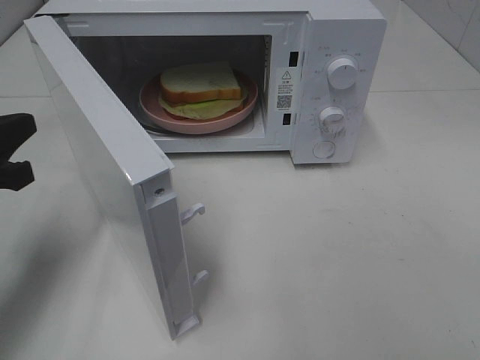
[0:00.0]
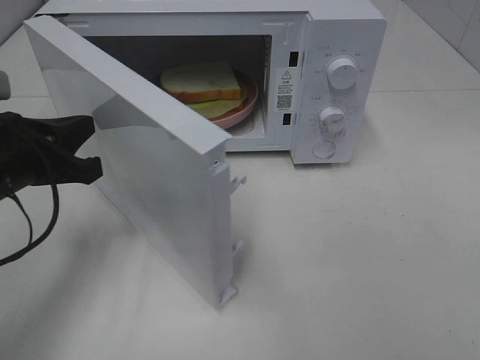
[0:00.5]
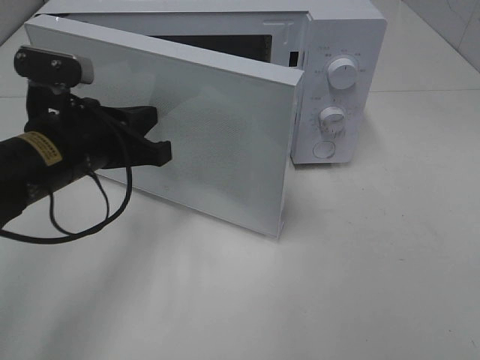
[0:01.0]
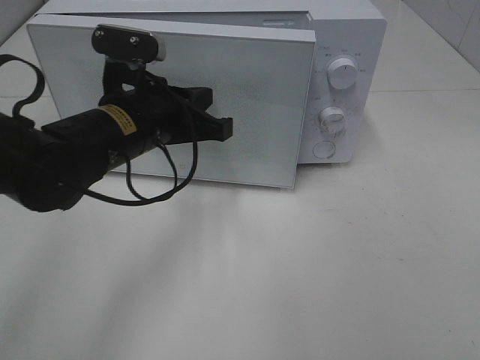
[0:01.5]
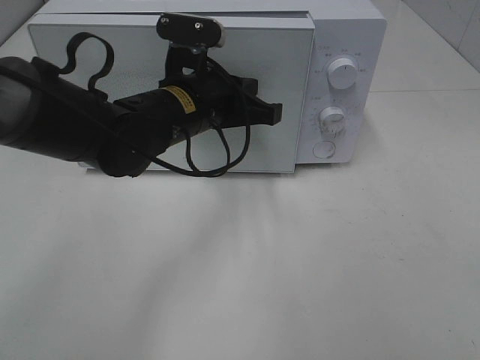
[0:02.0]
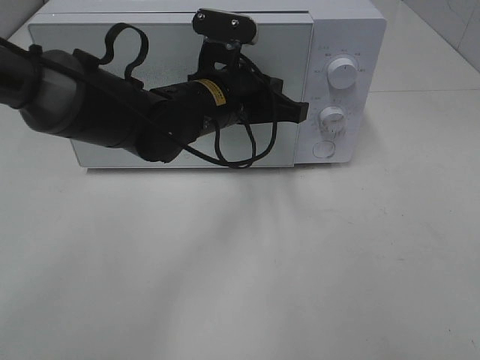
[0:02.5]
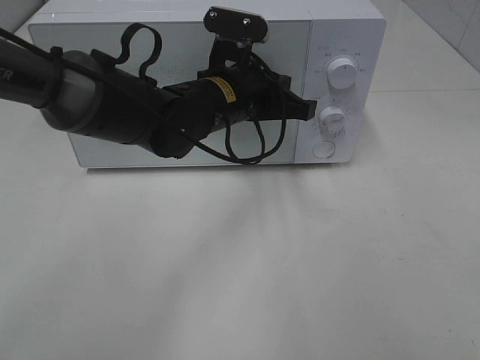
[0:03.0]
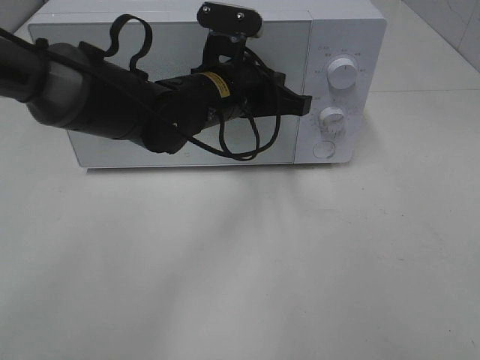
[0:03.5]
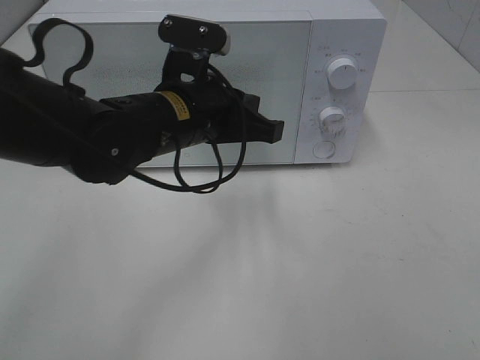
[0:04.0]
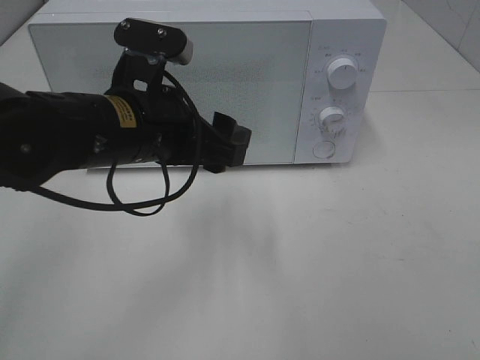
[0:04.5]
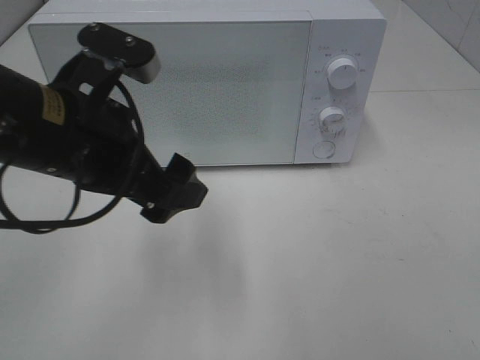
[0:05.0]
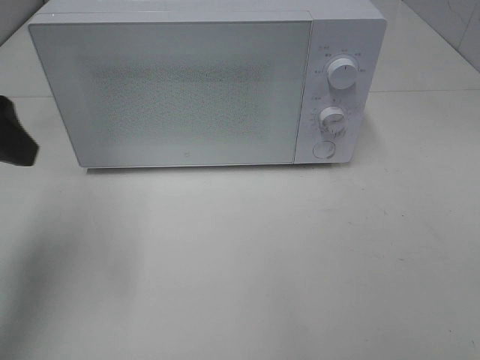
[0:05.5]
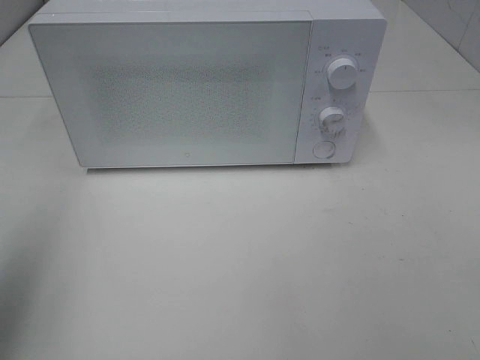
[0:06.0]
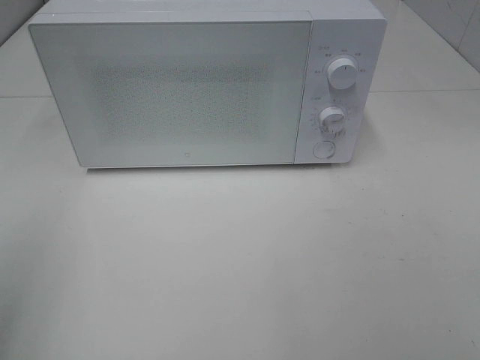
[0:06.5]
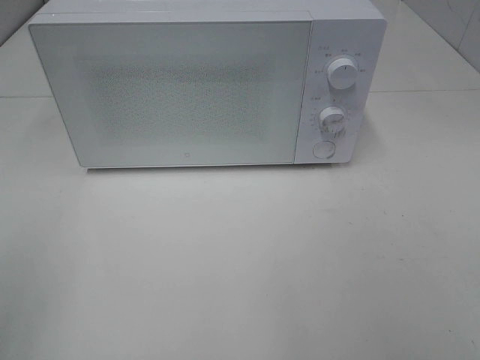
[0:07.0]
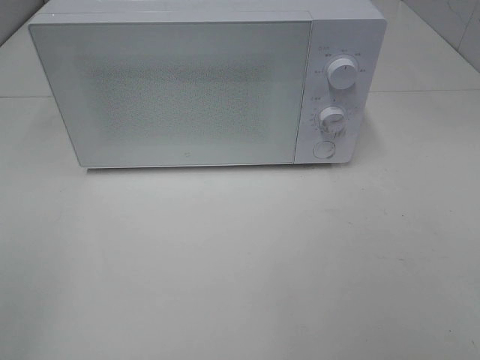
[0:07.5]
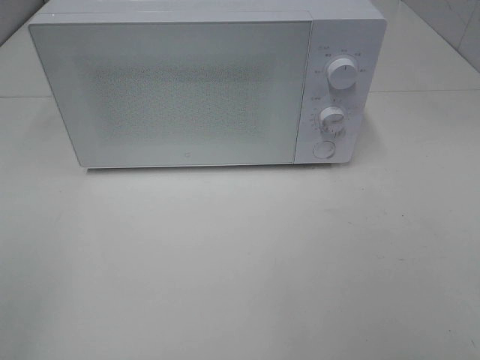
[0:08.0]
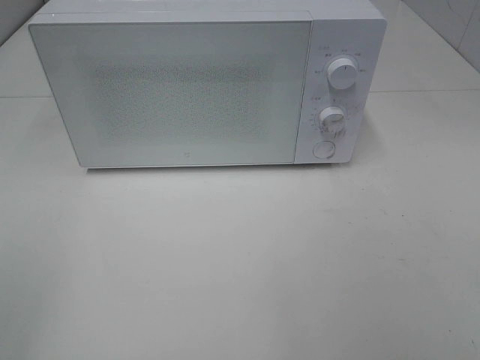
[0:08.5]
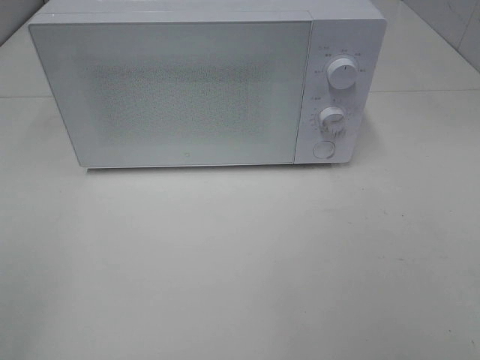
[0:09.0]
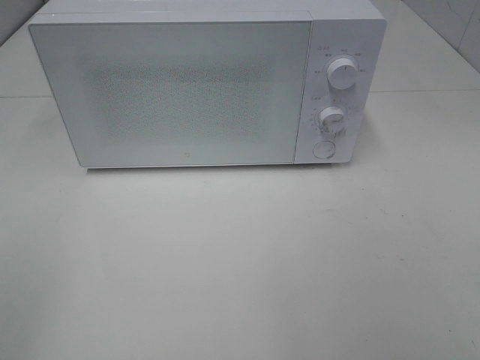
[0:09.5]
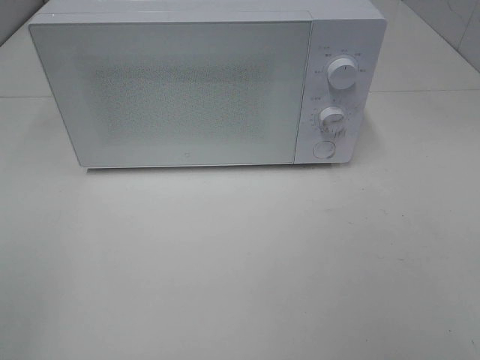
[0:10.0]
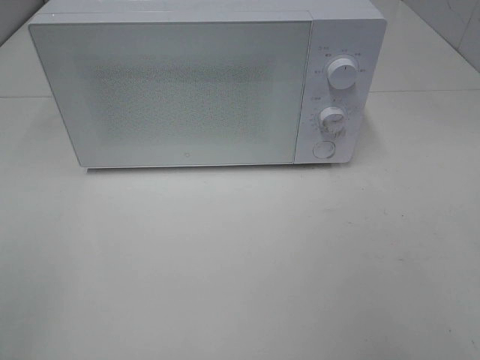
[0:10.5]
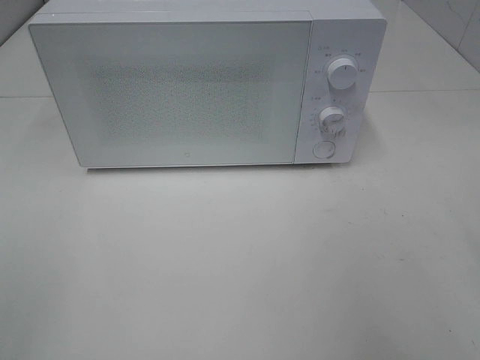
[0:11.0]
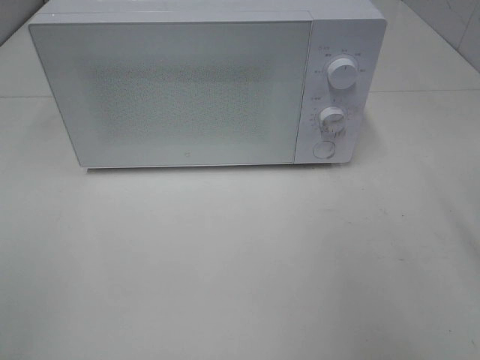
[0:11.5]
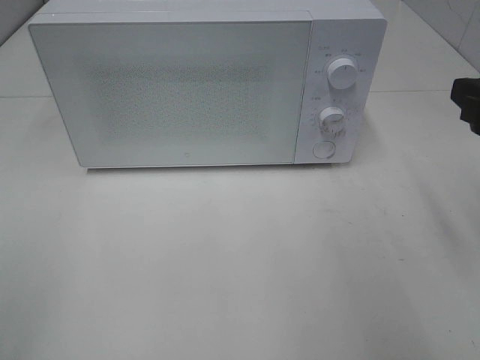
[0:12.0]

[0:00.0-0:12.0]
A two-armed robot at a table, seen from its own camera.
Task of the whole recording: Heat Sandwich.
Step, 0:00.0 to 0:04.0: Left hand: close the microwave door.
0:00.0 to 0:02.0: The left gripper heads to the right and forward, covering roughly 25 cm.
0:02.0 to 0:04.0: The grippers move only a little.
0:04.0 to 0:06.0: The left gripper shifts some 35 cm to the left, backward and upward, and opens.
0:06.0 to 0:08.0: The left gripper shifts some 15 cm backward and downward.
0:10.0 to 0:12.0: The right gripper moves forward, about 20 cm.

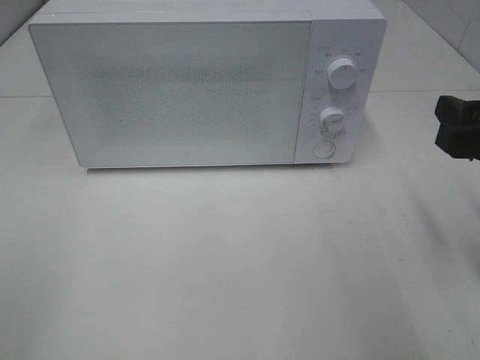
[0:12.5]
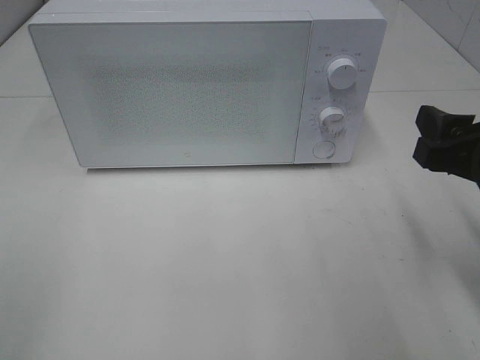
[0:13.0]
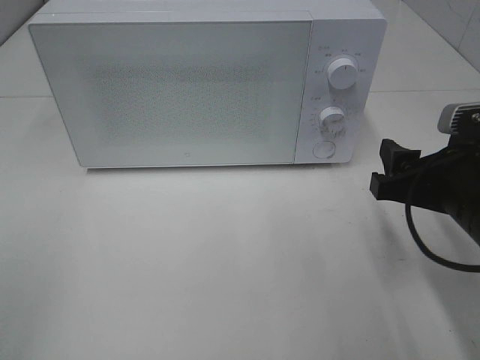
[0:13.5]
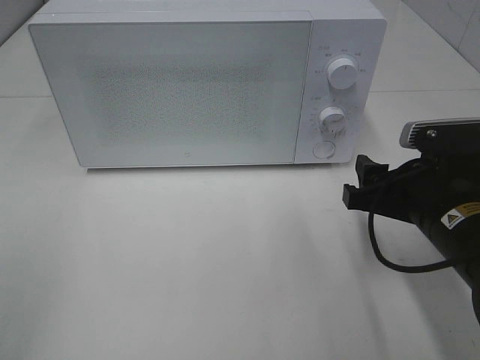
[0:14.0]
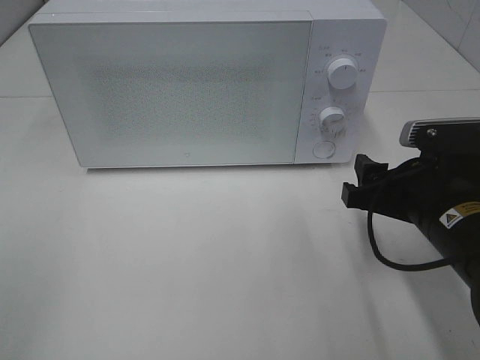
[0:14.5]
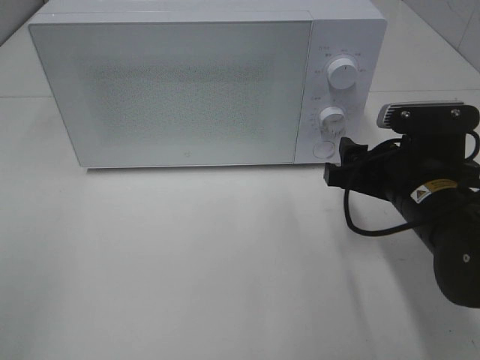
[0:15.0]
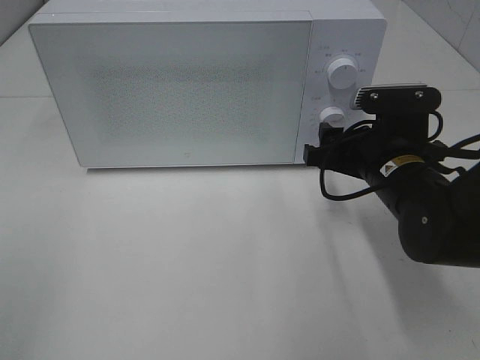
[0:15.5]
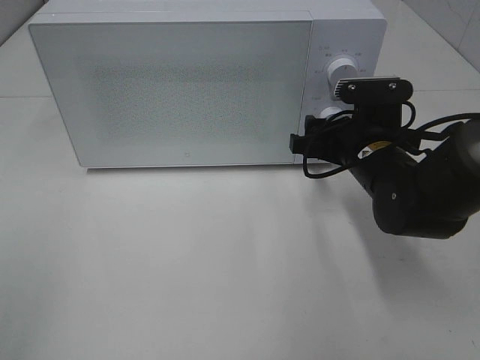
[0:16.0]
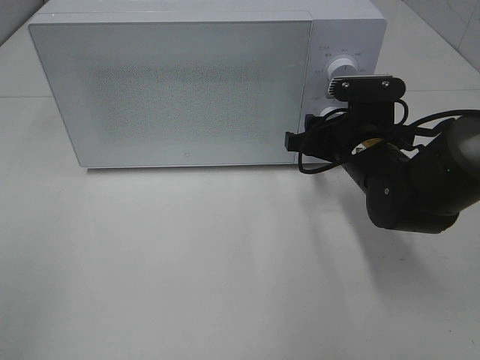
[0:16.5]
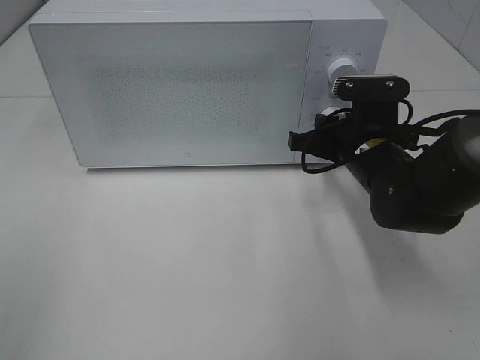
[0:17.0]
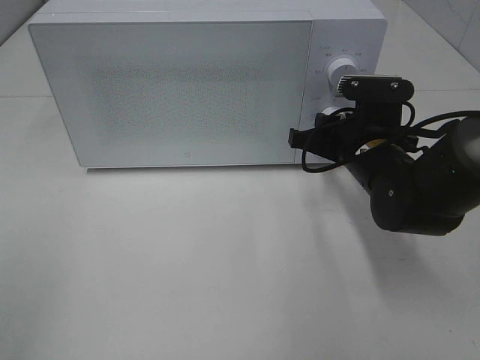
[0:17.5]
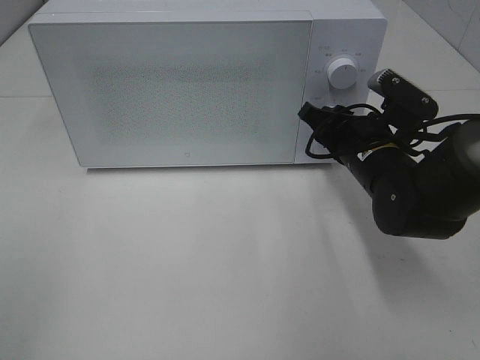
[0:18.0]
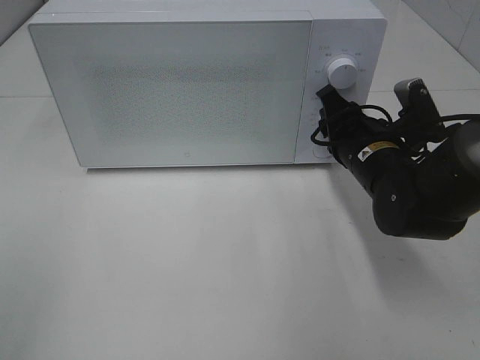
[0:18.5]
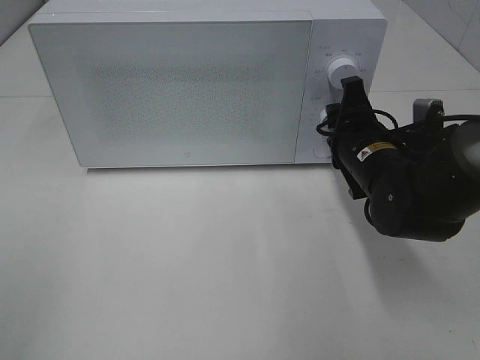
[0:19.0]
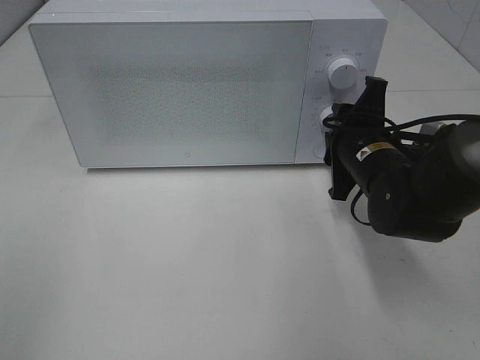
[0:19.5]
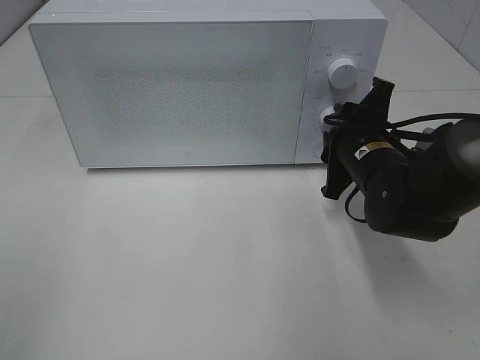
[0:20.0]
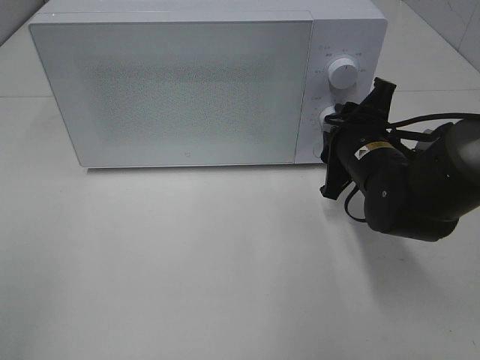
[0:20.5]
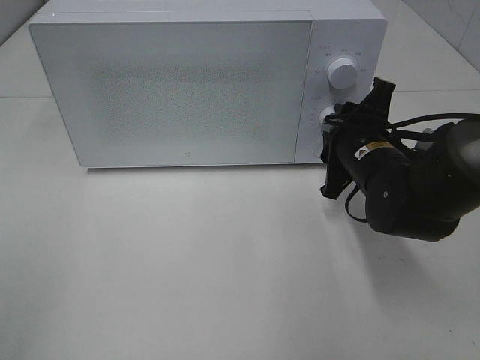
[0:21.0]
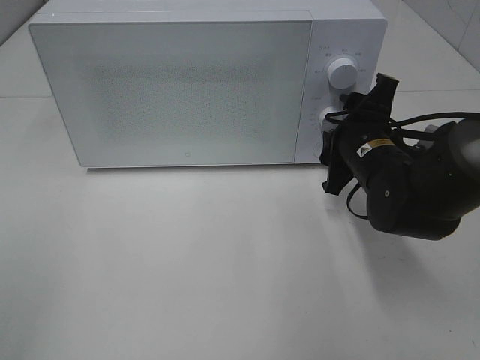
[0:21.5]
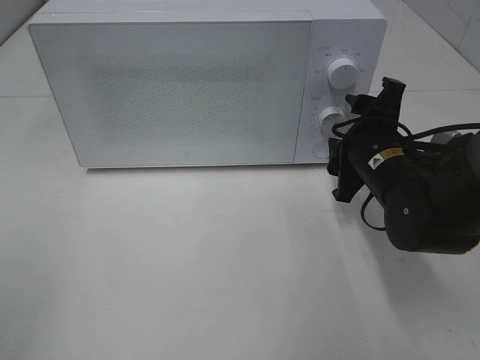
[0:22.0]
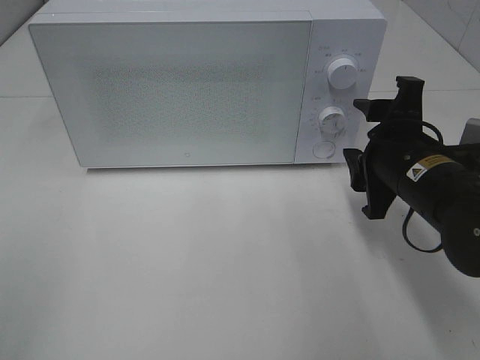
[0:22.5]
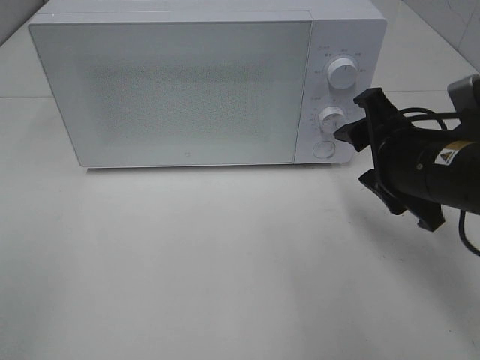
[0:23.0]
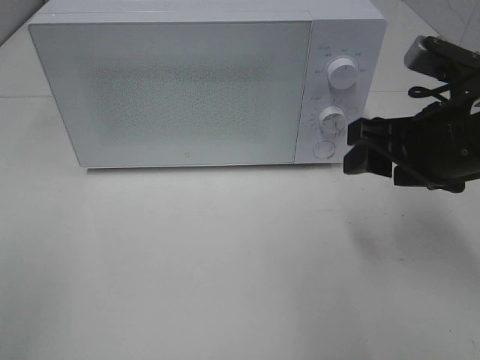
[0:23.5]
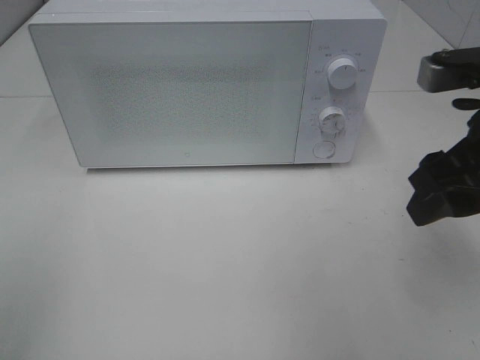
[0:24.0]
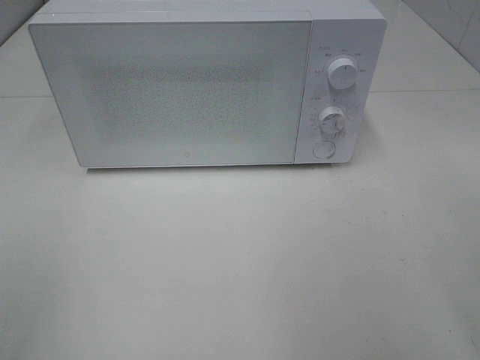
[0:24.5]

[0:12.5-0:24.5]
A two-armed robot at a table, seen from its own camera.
Task of the whole recording: Heat Sandwich.
Step, 0:12.5 to 0:22.0: Right hand: twist timer button.
0:12.5 to 0:14.5: The right gripper goes approximately 10 cm downward and to the left.
0:14.5 to 0:16.5: The right gripper heads forward, covering approximately 10 cm.
0:20.5 to 0:22.5: The right gripper heads backward, covering approximately 5 cm.
0:22.5 to 0:24.5: The right gripper travels upward and backward by about 20 cm.

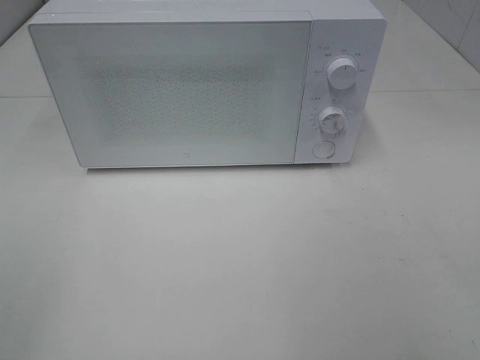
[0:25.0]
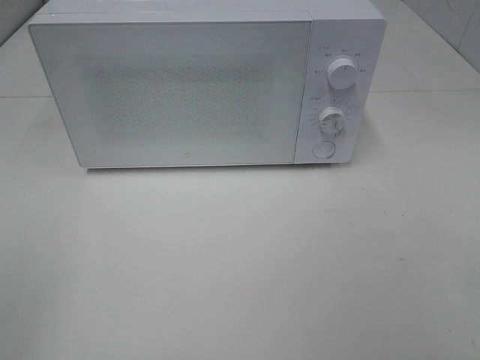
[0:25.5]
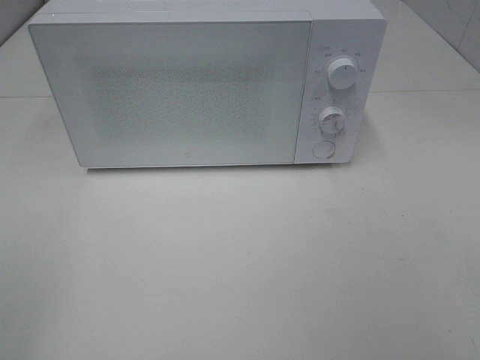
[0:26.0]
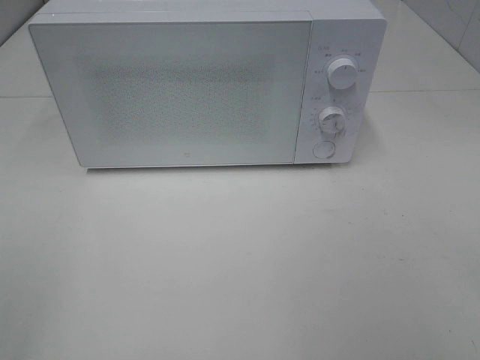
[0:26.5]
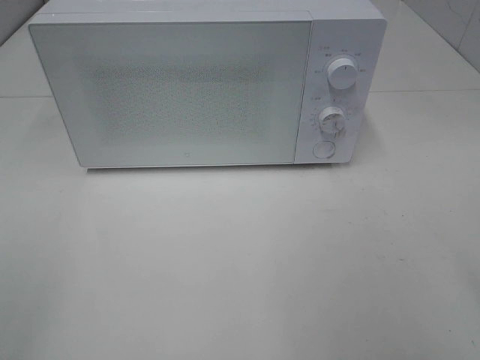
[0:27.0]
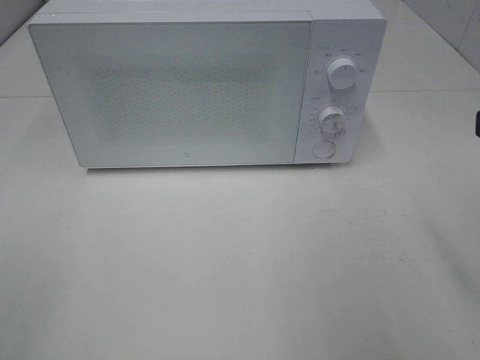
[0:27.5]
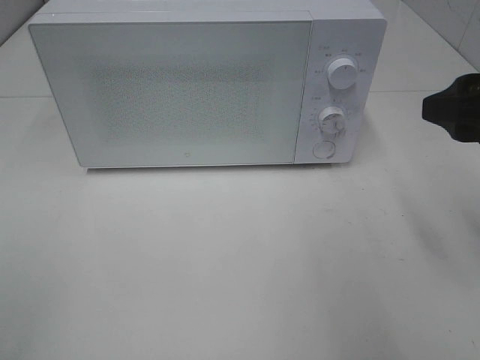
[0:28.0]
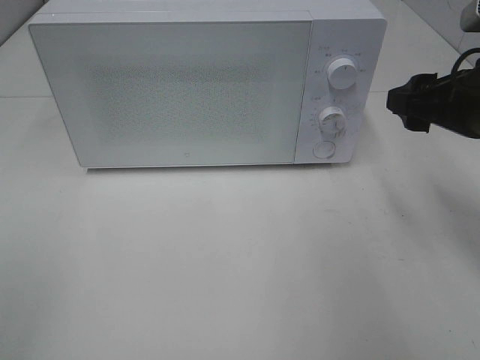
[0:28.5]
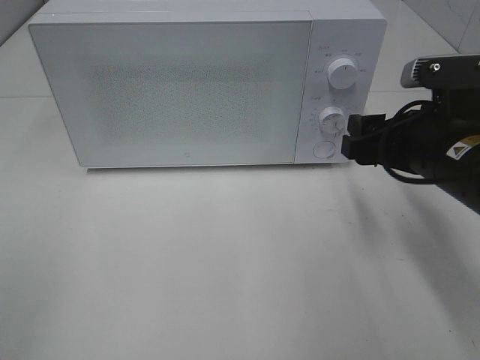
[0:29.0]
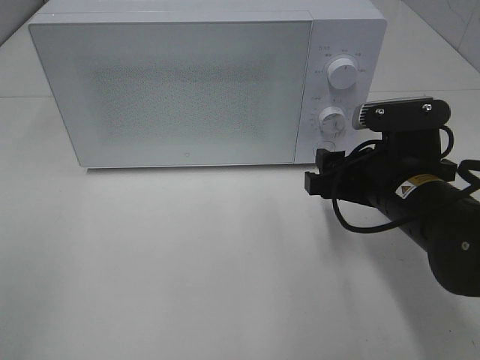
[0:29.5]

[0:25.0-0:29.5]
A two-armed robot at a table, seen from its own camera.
Task of the whole recording: Heat Sandwich.
0:27.0 to 0:29.5: The right gripper moves downward, forward and to the left, roughly 25 cm.
